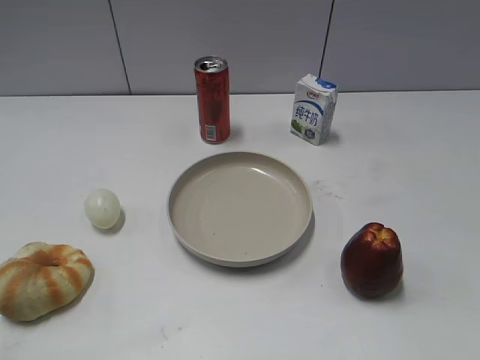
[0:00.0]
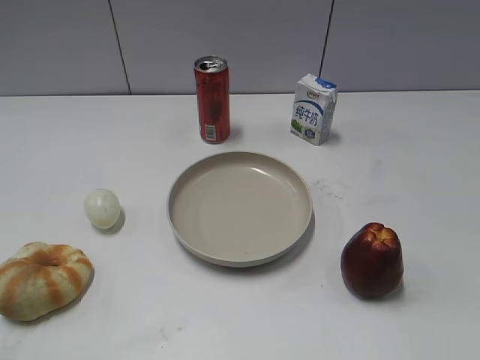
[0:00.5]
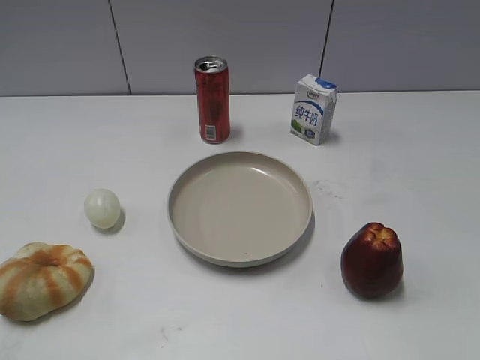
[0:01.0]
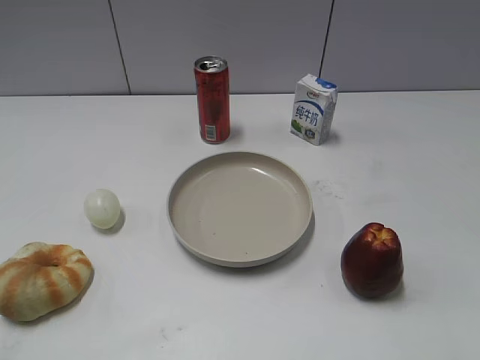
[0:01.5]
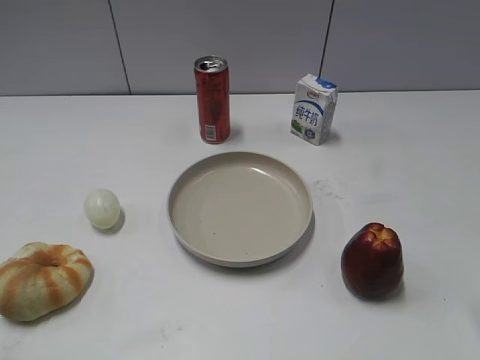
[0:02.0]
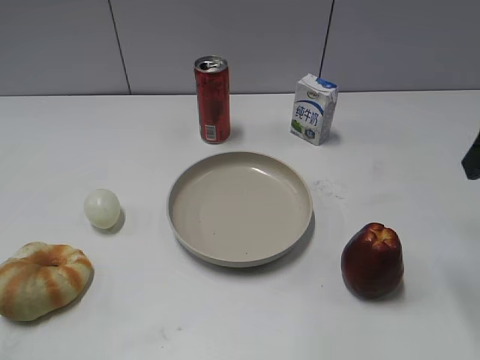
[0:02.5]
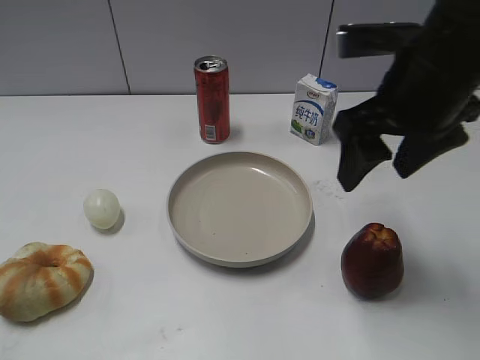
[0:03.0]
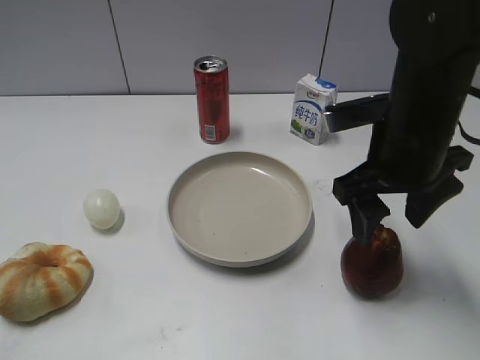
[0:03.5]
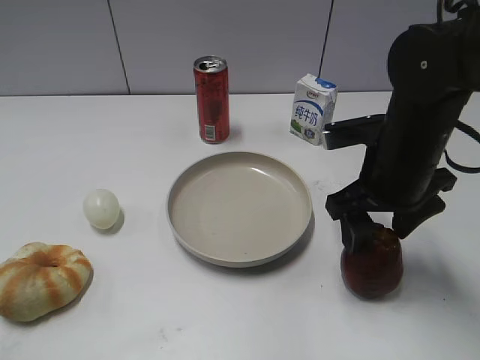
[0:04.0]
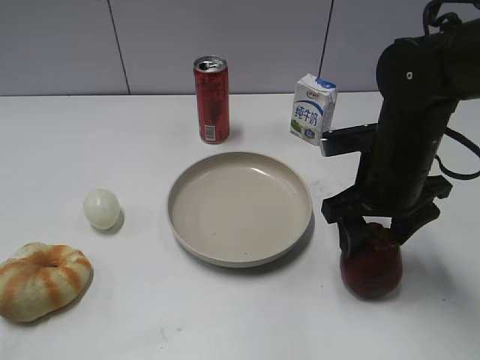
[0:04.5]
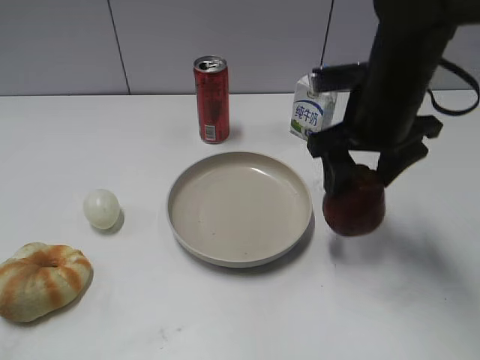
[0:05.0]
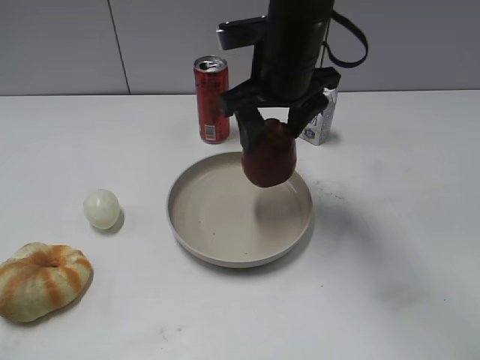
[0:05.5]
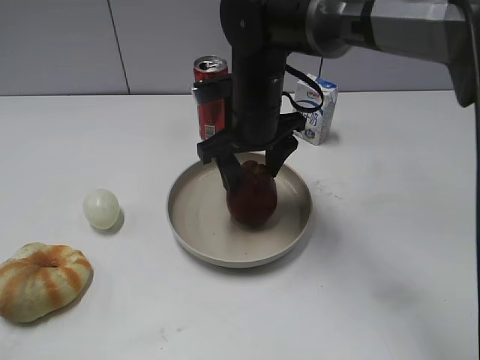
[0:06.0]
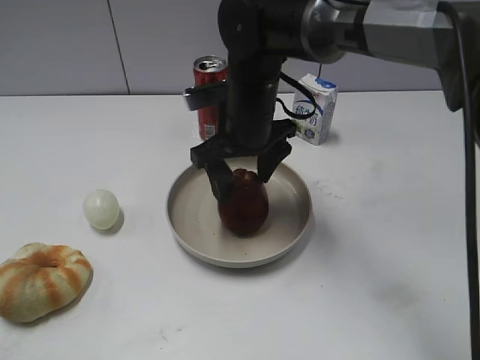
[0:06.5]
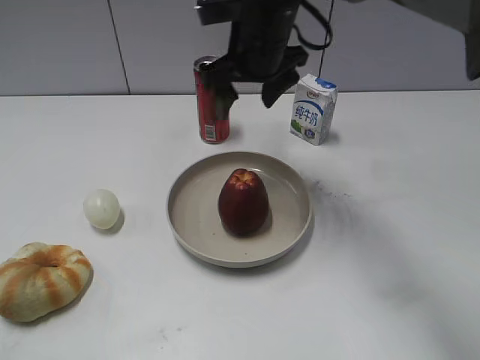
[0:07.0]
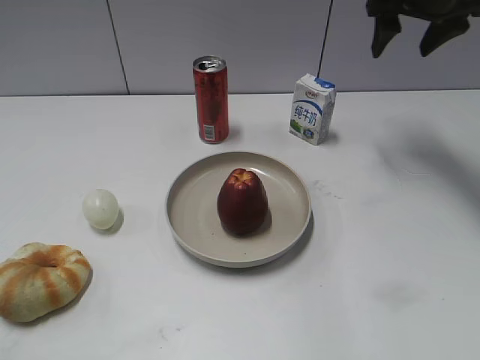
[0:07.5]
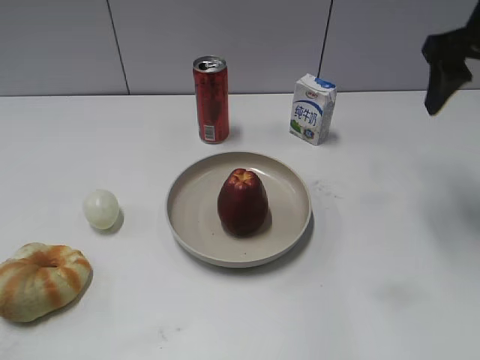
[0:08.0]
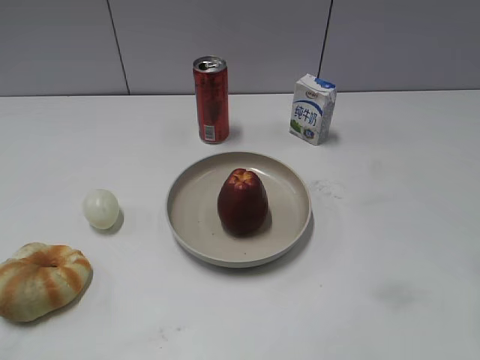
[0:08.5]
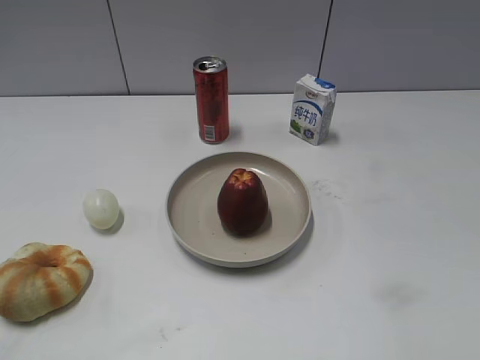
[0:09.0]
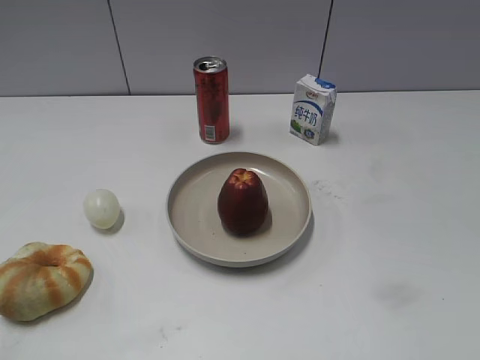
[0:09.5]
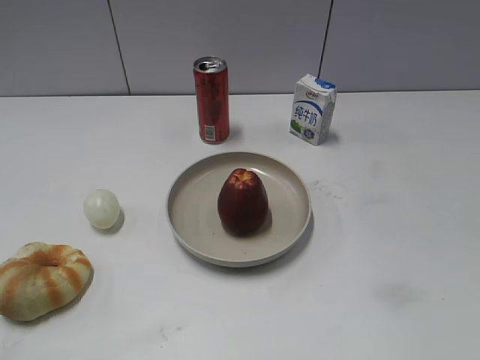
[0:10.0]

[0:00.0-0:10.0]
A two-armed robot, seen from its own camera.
Step, 0:02.5 to 0:04.5: Grasp the apple with right gripper.
Step, 0:05.0 to 0:06.5: Place the apple on the plate with right gripper.
0:02.0 to 0:04.0: The right gripper shifts about 20 cm to the left, downward and forward.
0:04.0 to 0:06.0: The right gripper travels to the left and forward by roughly 15 cm.
0:06.0 to 0:08.0: The right gripper travels to the right and upward by roughly 25 cm.
0:08.0 to 0:10.0: The right gripper heads backward, covering approximately 35 cm.

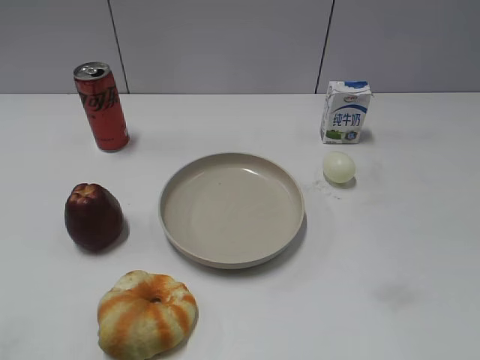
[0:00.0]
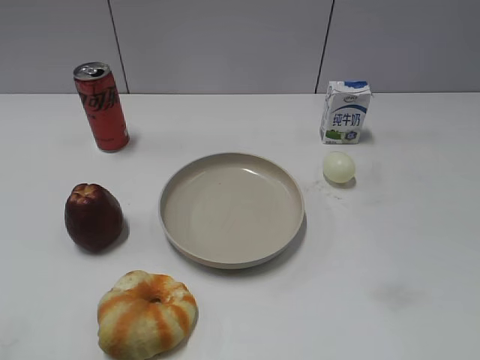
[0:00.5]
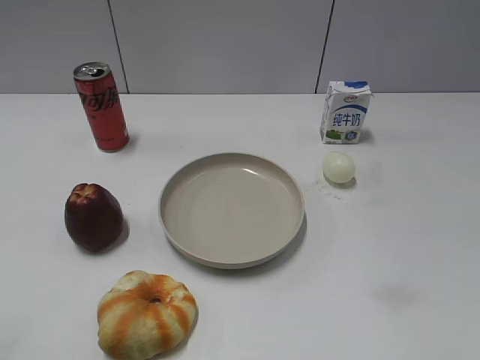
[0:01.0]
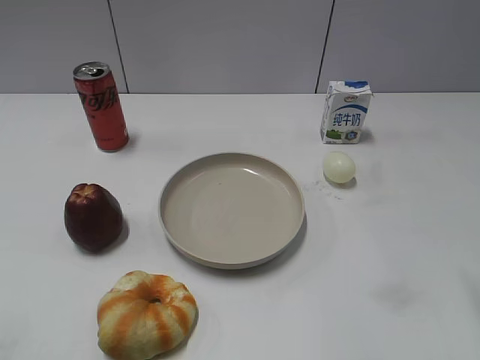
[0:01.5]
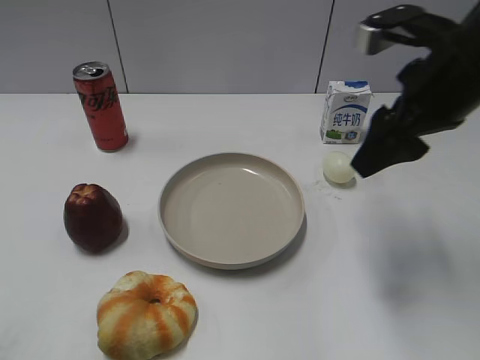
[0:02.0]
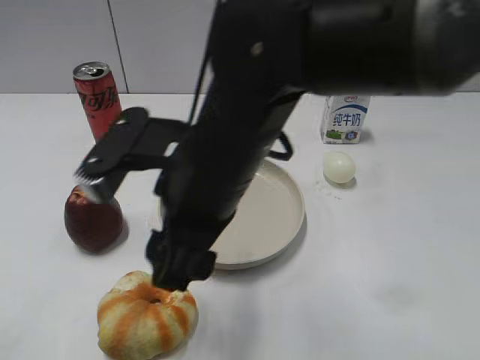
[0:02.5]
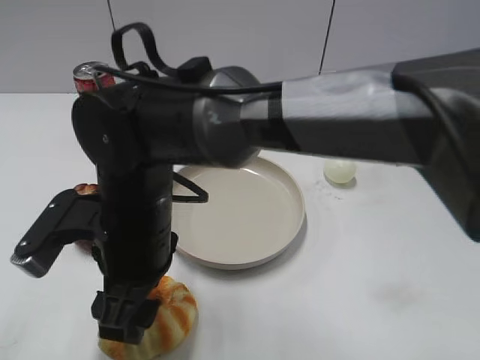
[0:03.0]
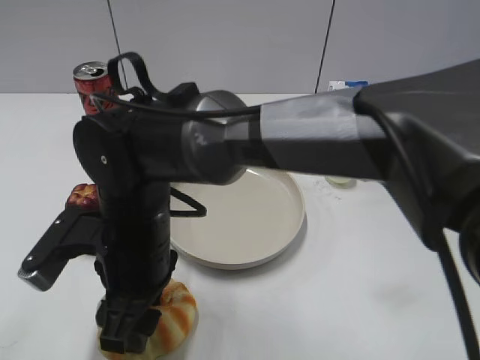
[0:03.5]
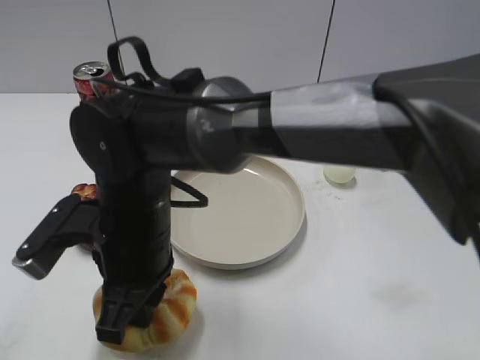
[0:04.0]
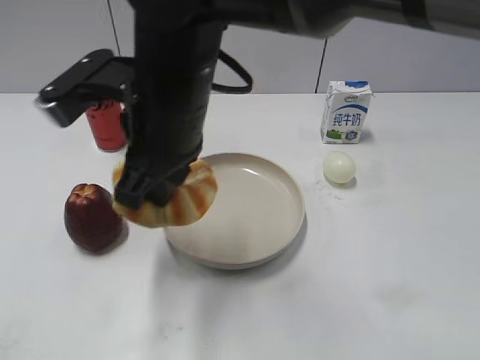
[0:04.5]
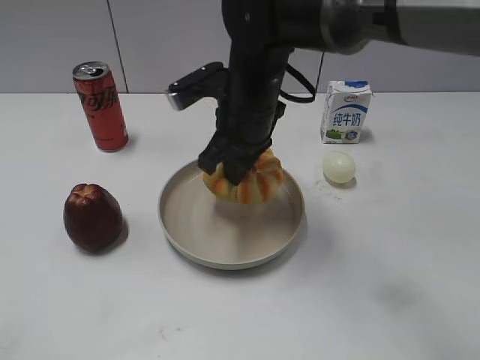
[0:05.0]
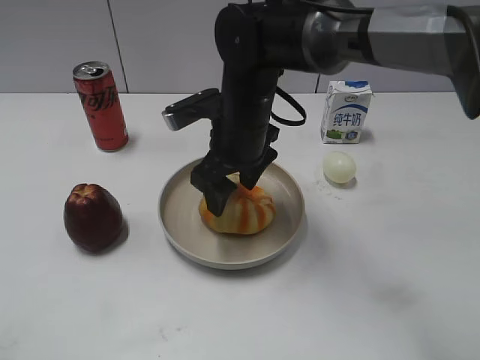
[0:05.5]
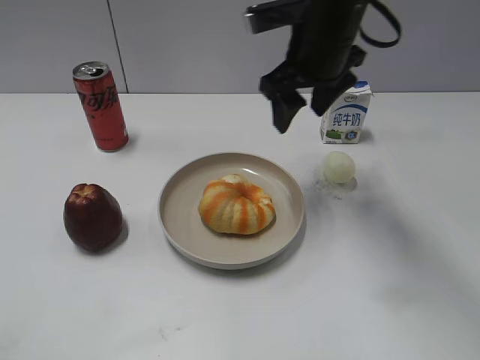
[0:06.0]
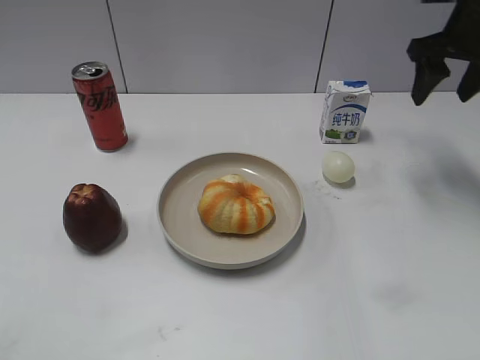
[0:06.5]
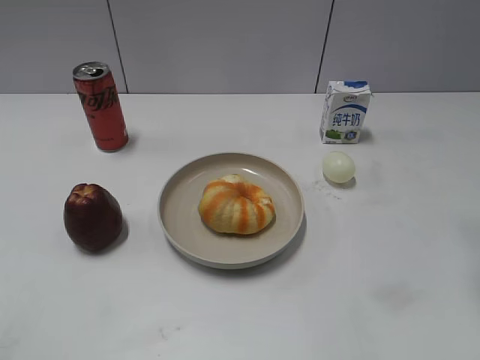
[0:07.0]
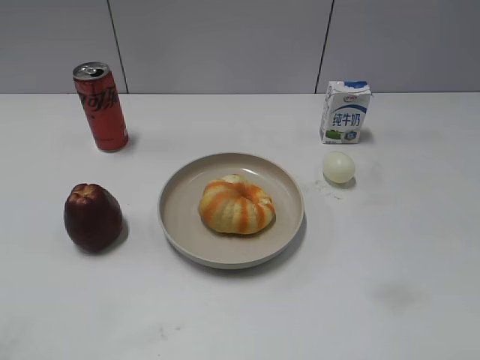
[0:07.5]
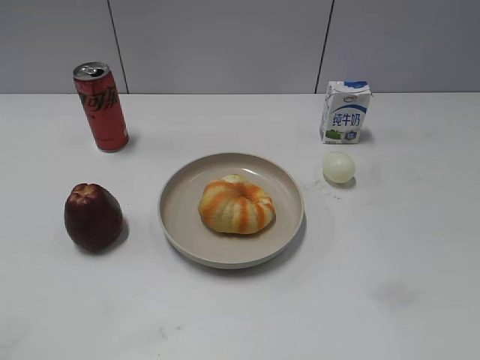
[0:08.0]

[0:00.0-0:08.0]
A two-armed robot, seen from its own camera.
Step, 0:01.0 to 0:03.5: Grasp the round bread with right gripper.
Step, 0:04.0 to 0:05.5: Place the round bread on the plate with right gripper.
0:02.0 to 0:04.0: The right gripper shifts approximately 30 cm to the left and downward, and closes.
0:04.0 to 0:06.0: The right gripper moves forward, to the right and upward, roughly 30 cm, and opens its fingers.
0:06.0 to 0:08.0: The right gripper travels backward and to the right by approximately 40 cm.
